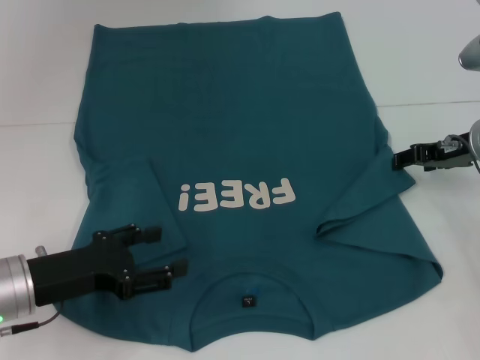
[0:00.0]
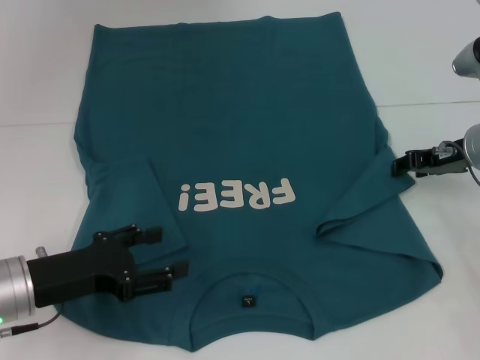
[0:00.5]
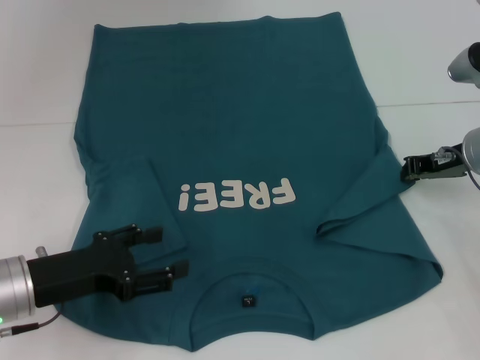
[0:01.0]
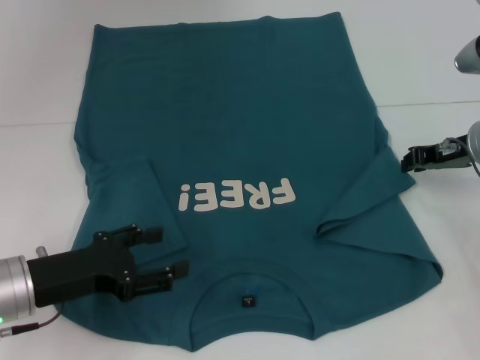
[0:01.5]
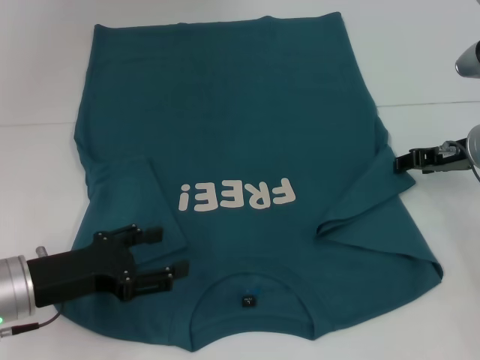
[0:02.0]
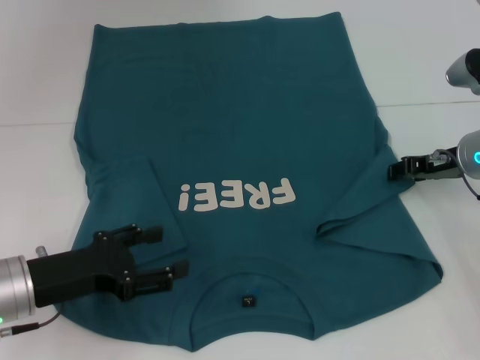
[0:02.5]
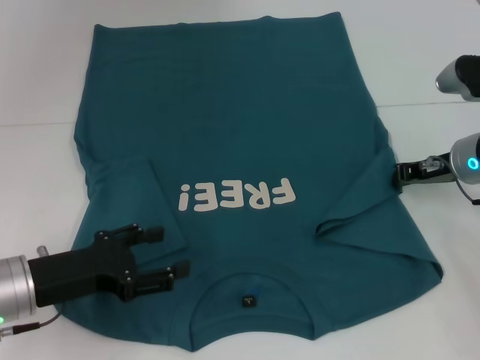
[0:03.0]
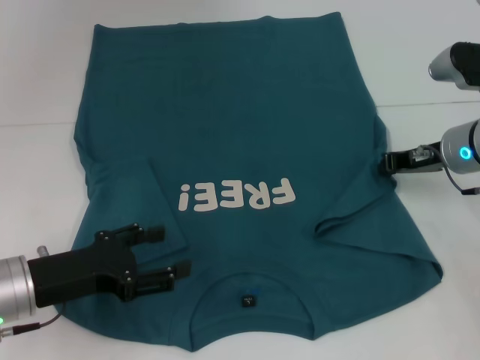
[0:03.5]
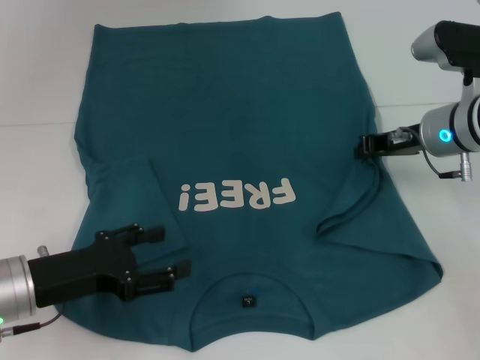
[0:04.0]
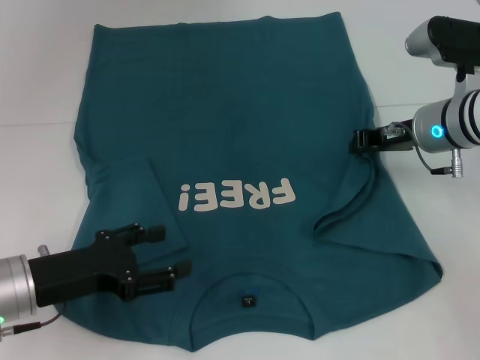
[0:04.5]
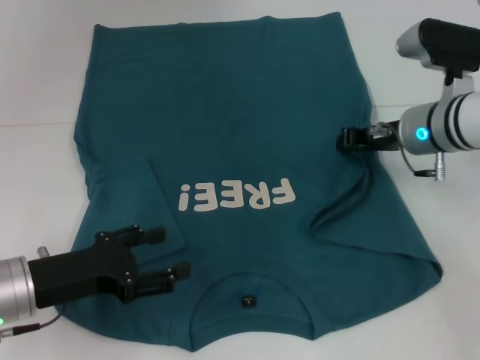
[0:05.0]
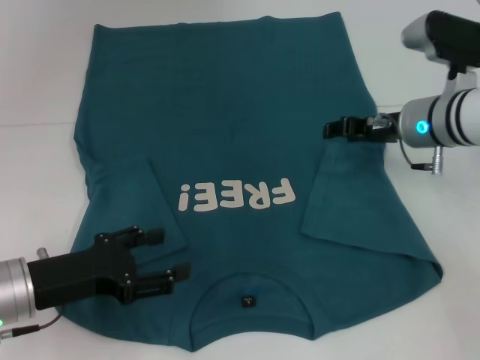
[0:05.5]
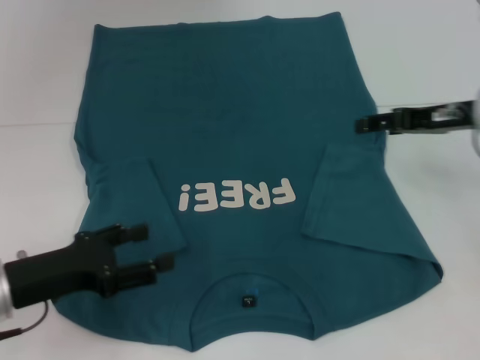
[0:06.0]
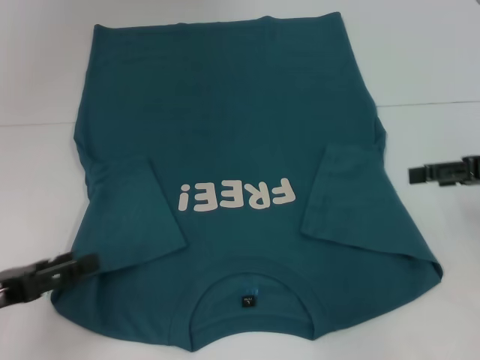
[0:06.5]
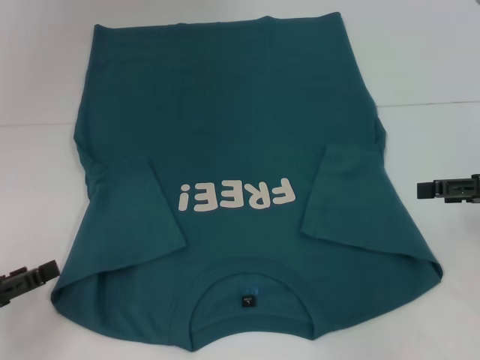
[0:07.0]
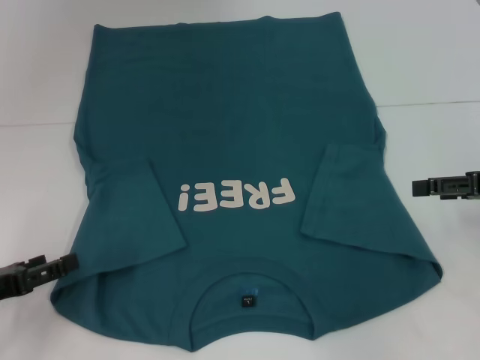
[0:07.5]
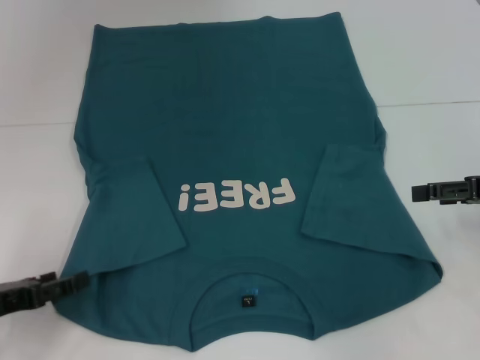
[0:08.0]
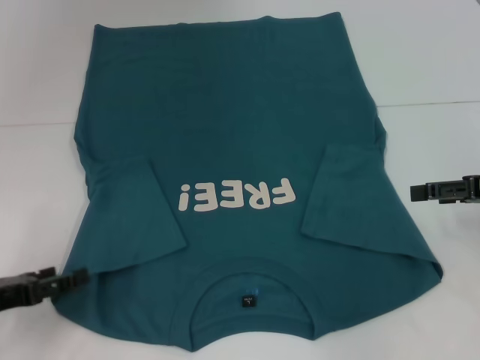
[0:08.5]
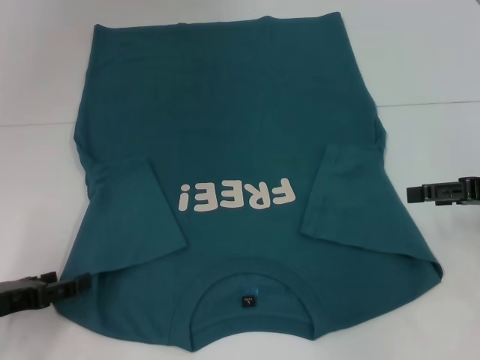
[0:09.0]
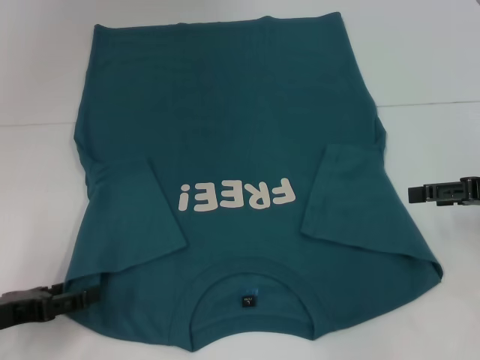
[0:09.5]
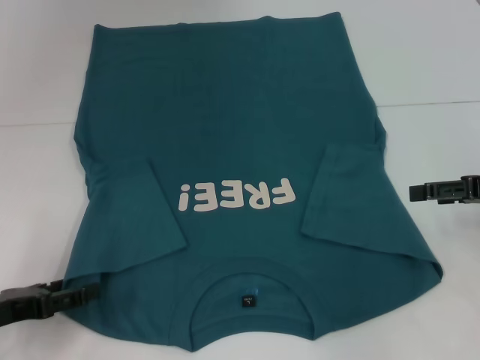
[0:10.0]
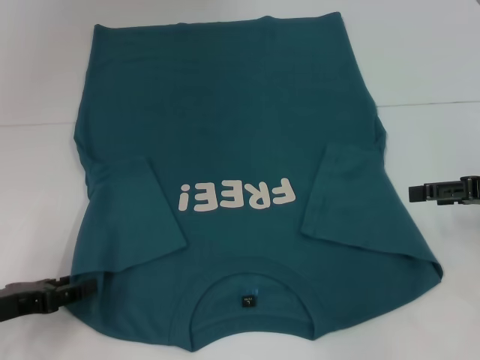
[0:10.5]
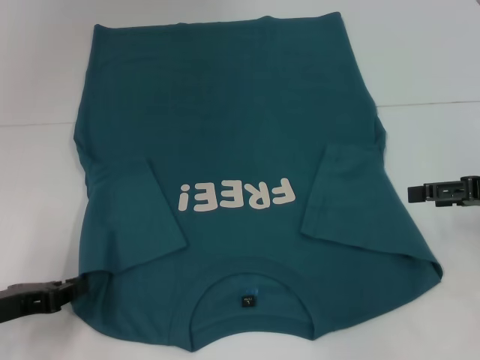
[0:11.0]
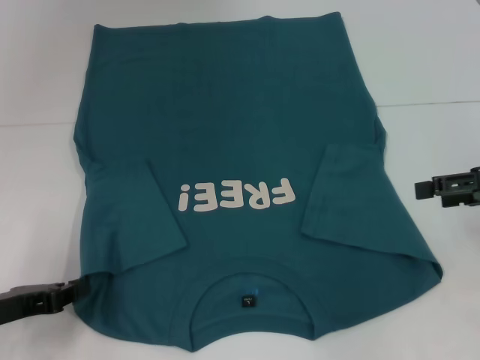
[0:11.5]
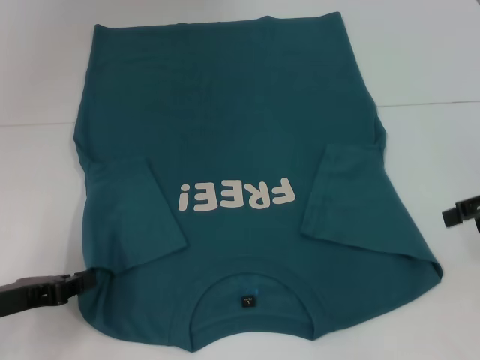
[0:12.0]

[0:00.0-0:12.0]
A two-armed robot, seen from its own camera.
Step, 0:00.0 to 0:06.0: Fold the bottom right sleeve to the right.
Step, 0:06.5 to 0:11.5: Grab the bottom left corner with your left hand.
0:00.0 to 0:02.0: The right gripper closes and opens again.
0:02.0 to 0:04.0: The right gripper changes place by about 5 cm, and closes its fingers.
0:04.0 to 0:06.0: The right gripper shifts by some 5 cm, and opens up.
0:06.0 to 0:08.0: The left gripper moves to the left, approximately 5 cm; the right gripper moves to the right and backward, about 10 cm.
0:08.0 to 0:10.0: There are only small adjustments of the grippers.
0:10.0 to 0:12.0: The left gripper closes up.

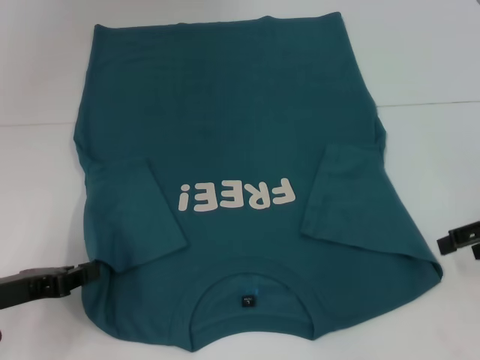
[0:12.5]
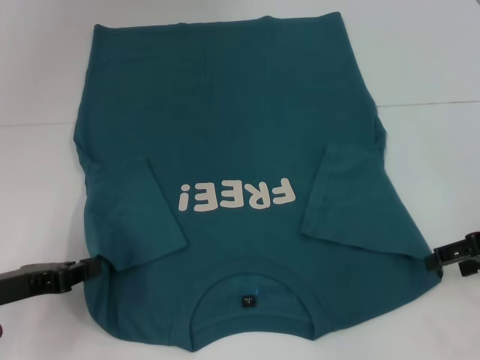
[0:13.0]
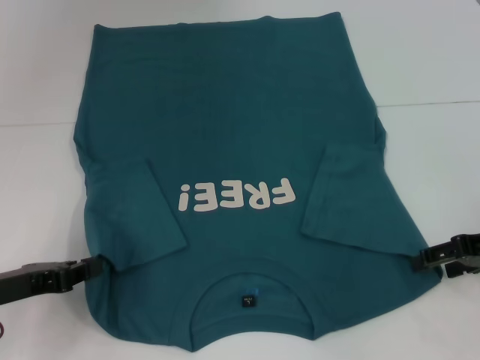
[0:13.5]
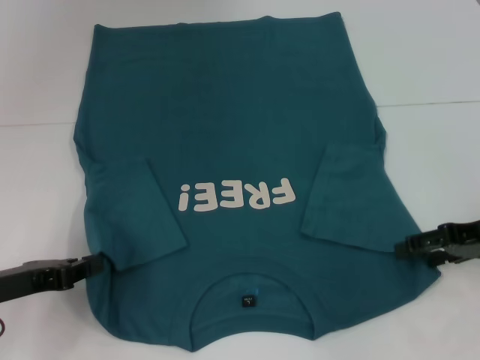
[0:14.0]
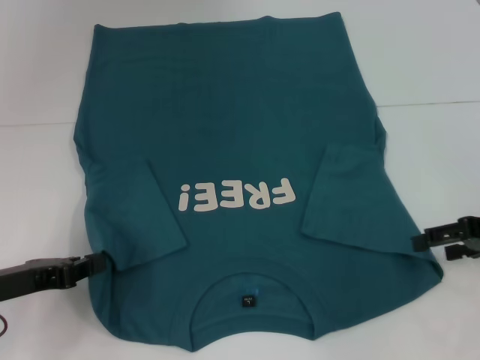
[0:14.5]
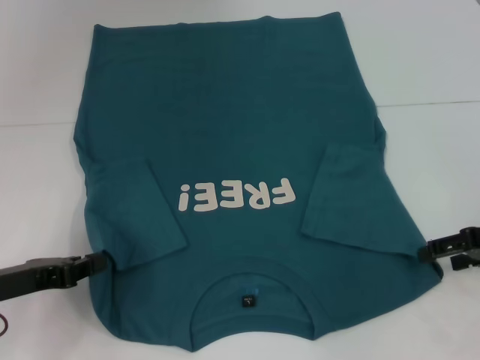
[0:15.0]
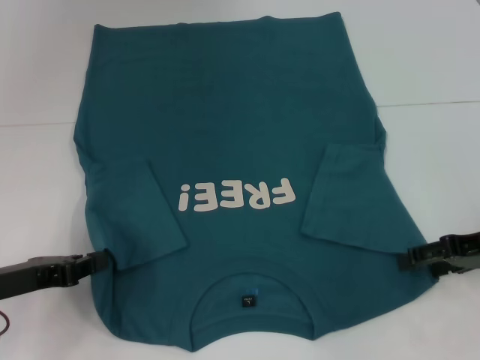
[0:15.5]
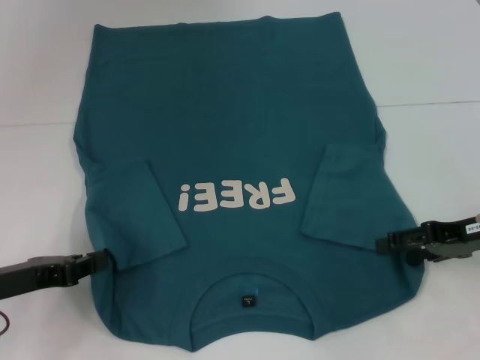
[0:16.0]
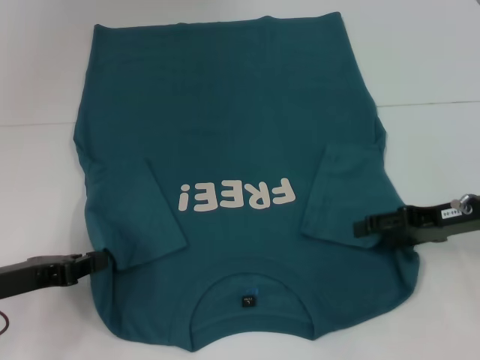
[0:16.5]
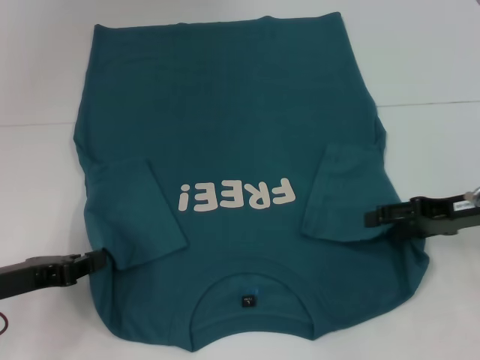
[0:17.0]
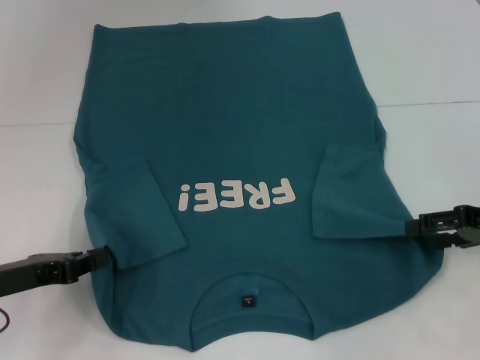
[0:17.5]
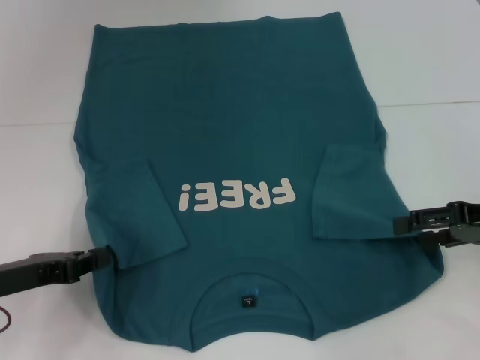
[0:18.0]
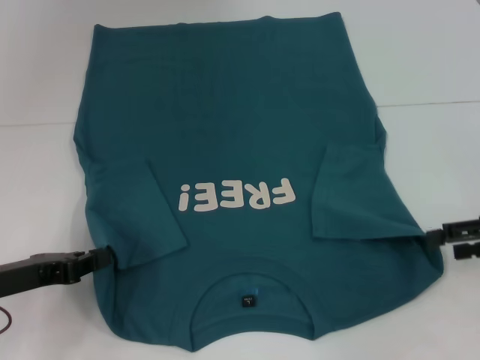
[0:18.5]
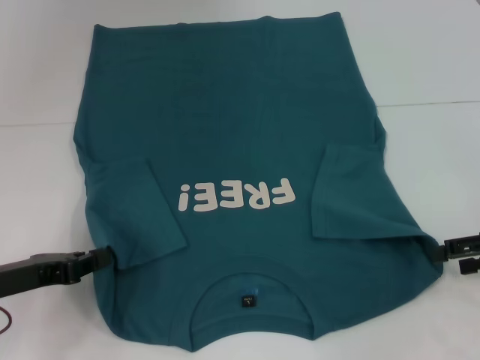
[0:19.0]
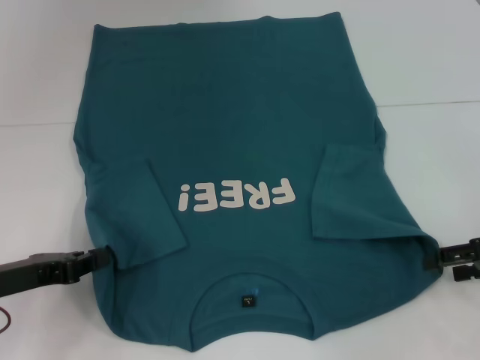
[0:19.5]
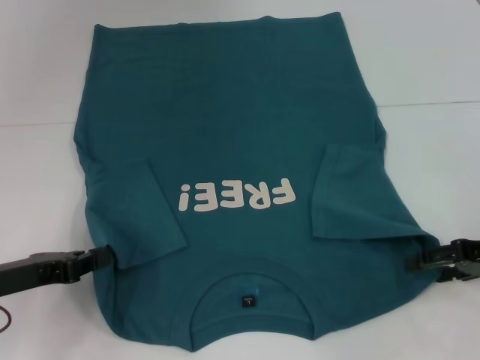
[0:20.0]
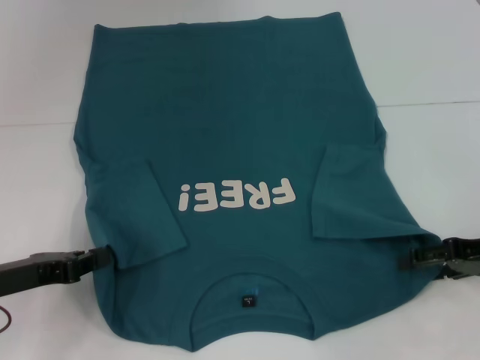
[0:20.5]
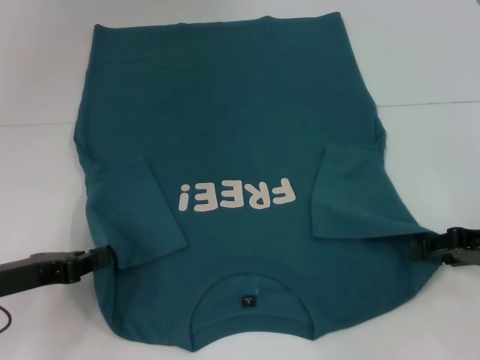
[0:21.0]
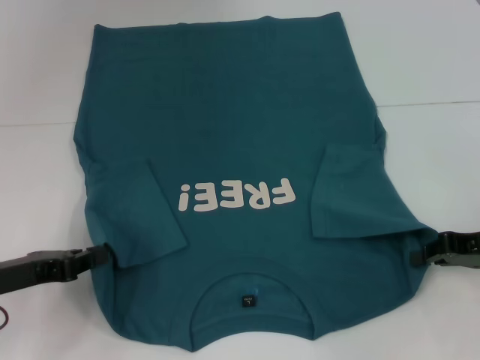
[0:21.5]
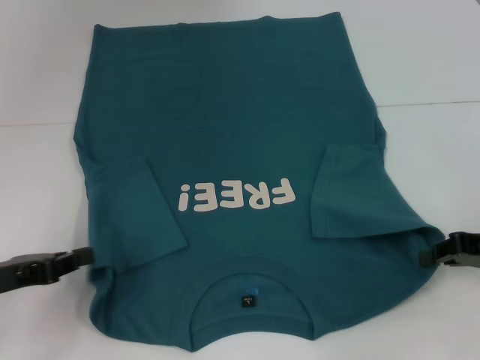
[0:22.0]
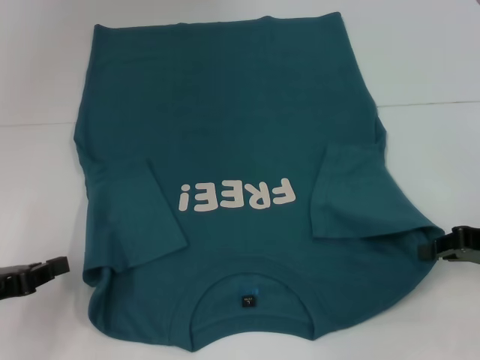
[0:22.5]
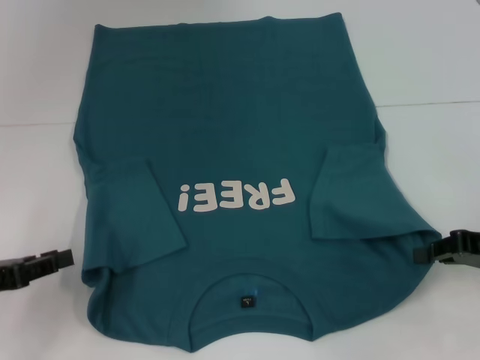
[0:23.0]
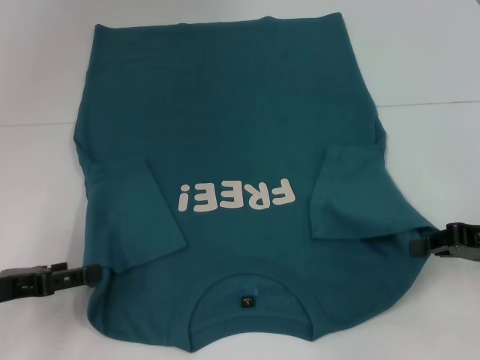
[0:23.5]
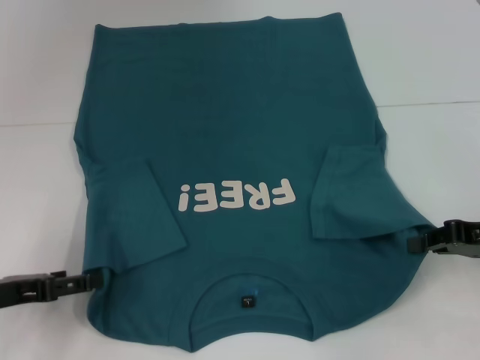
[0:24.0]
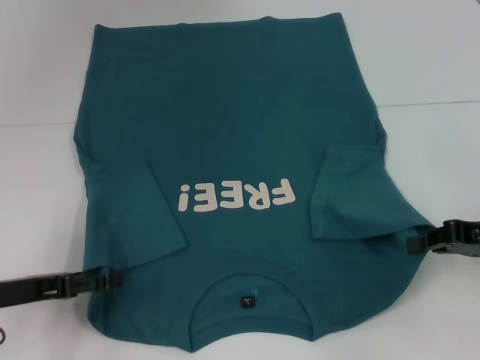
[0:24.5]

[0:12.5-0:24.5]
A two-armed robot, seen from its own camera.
Step, 0:12.5 to 0:22.0: Grab the bottom right corner with your right hand.
0:12.5 to 0:14.5: The grippers make only small movements.
0:14.5 to 0:16.5: The right gripper travels to the left by about 5 cm.
0:16.5 to 0:18.5: The right gripper goes about 5 cm to the right.
0:18.5 to 0:20.5: The grippers stay close to where they were, moving slightly.
0:20.5 to 0:22.5: The right gripper closes.
0:22.5 to 0:24.5: The left gripper opens up.

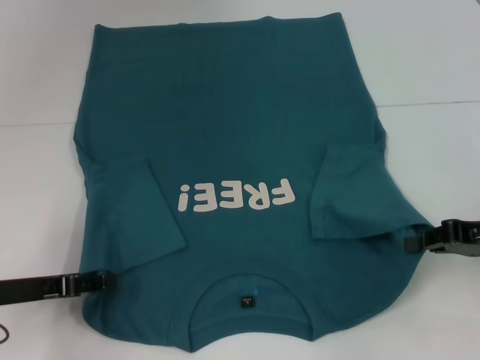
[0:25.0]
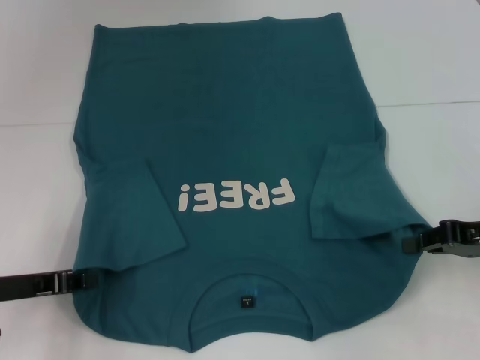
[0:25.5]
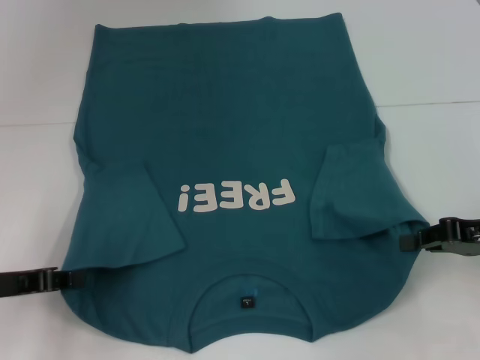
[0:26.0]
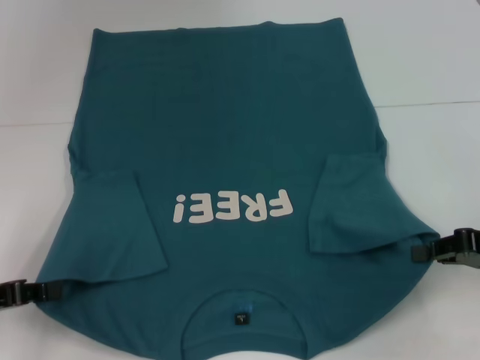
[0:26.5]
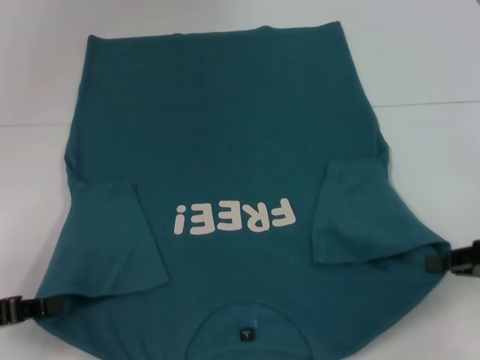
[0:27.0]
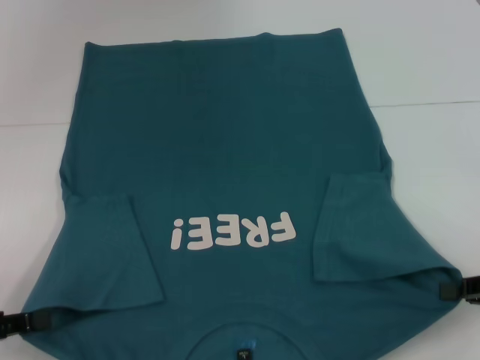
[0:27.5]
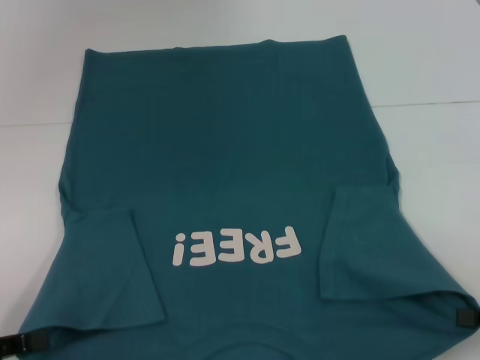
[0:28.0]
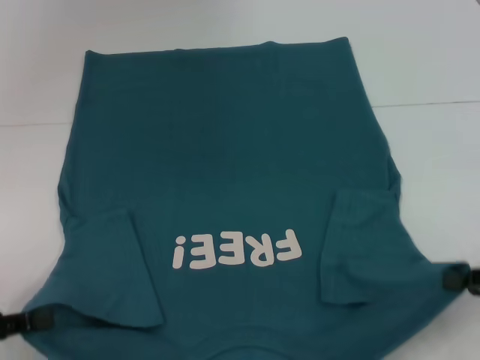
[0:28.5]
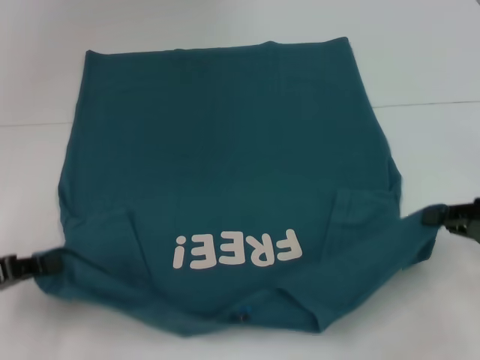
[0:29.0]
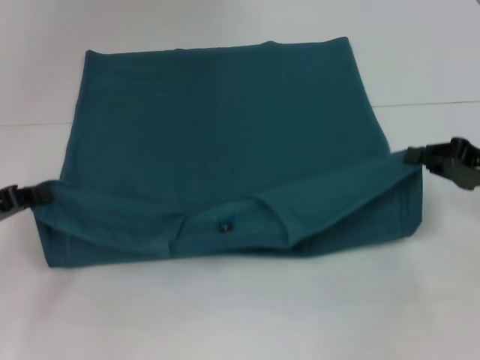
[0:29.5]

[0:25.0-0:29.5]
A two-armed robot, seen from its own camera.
0:25.0 to 0:27.0: The left gripper ends up some 5 cm from where it was, and closes.
0:27.0 to 0:29.5: Both grippers move forward, roughly 5 cm.
